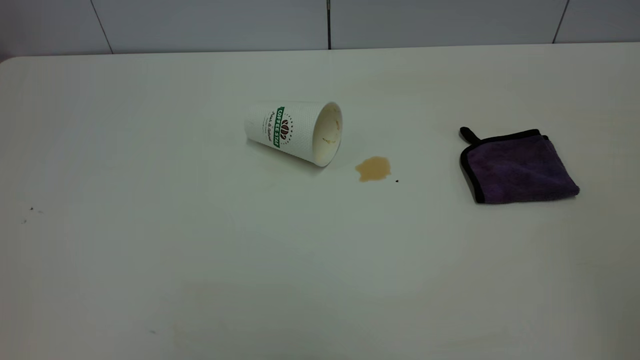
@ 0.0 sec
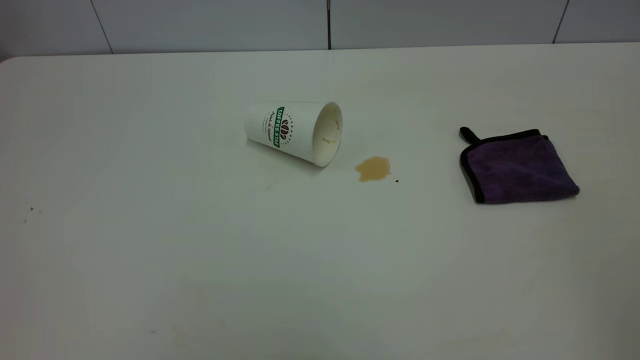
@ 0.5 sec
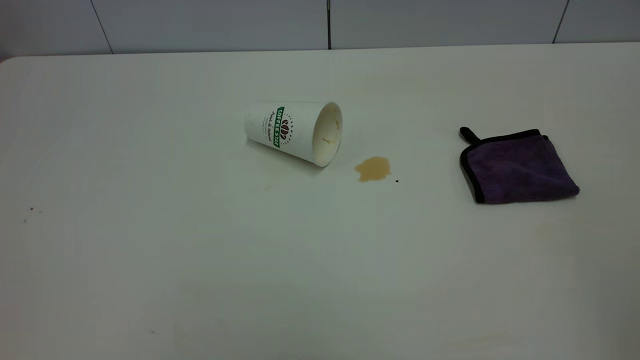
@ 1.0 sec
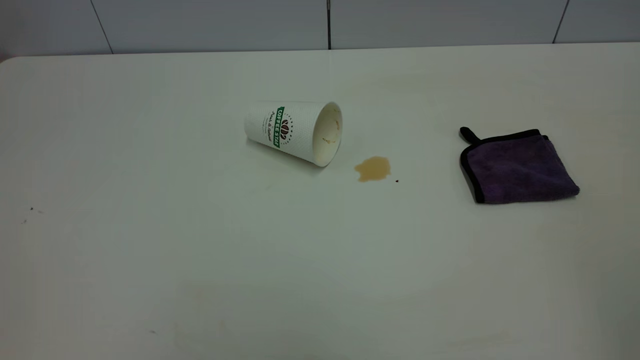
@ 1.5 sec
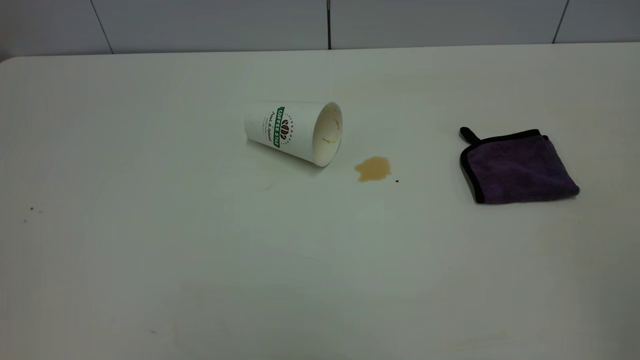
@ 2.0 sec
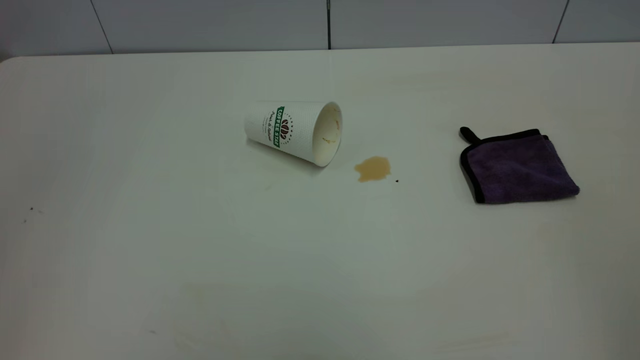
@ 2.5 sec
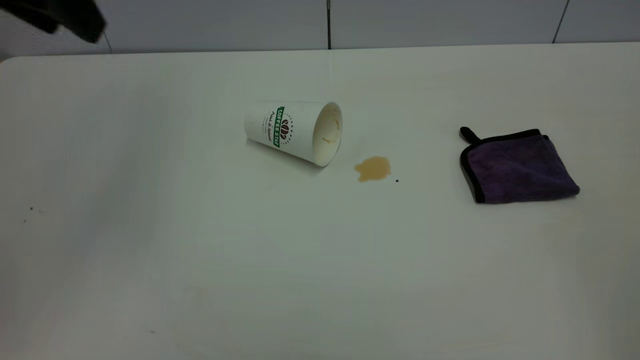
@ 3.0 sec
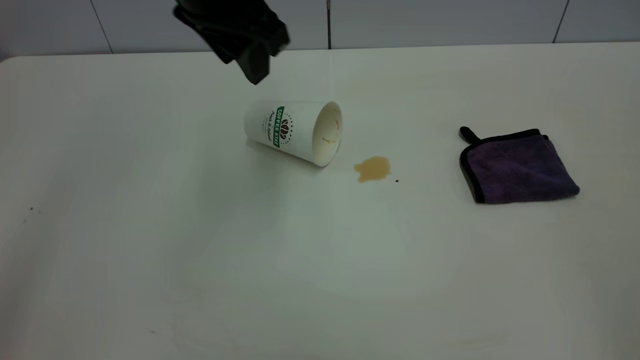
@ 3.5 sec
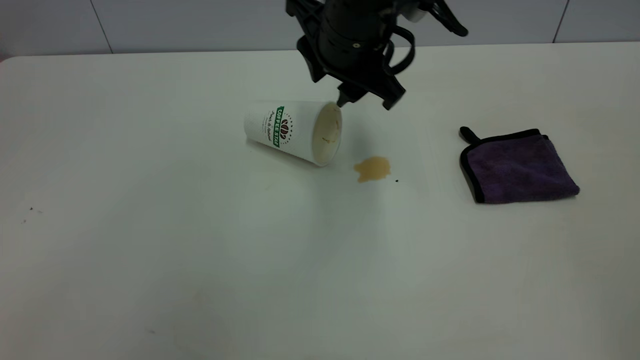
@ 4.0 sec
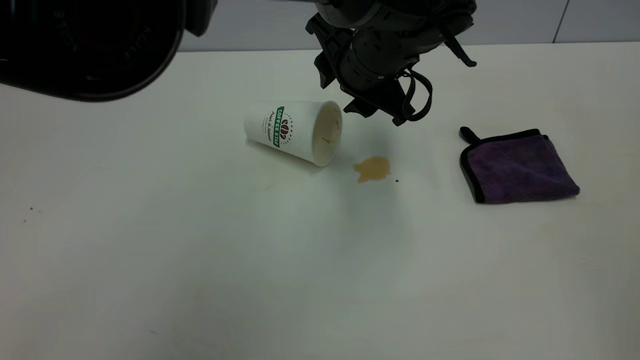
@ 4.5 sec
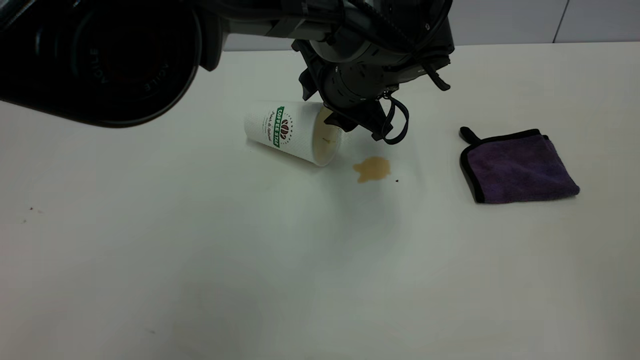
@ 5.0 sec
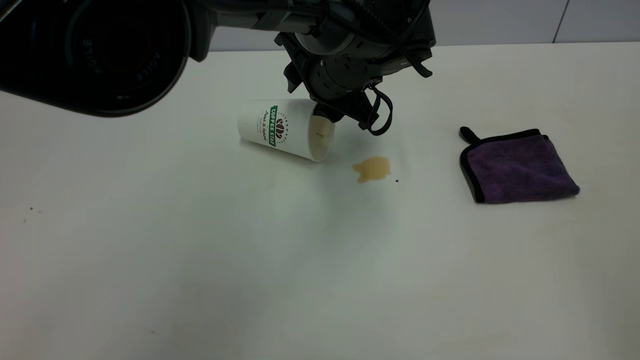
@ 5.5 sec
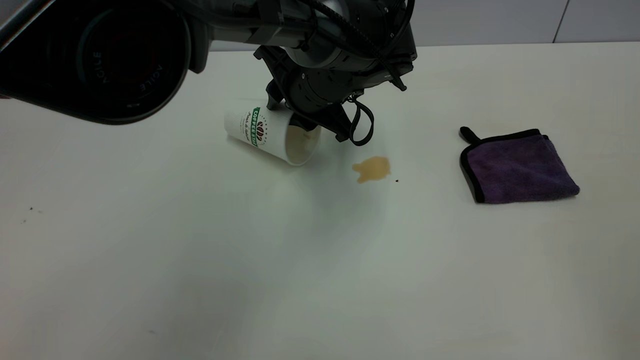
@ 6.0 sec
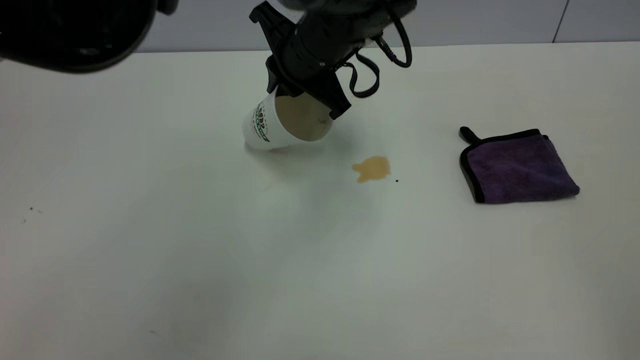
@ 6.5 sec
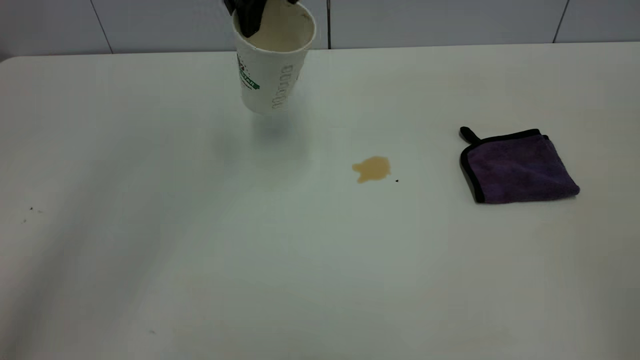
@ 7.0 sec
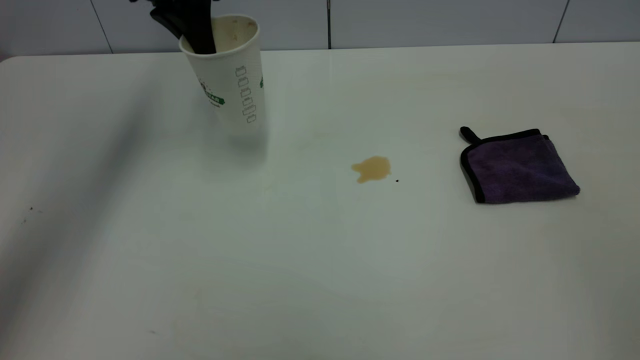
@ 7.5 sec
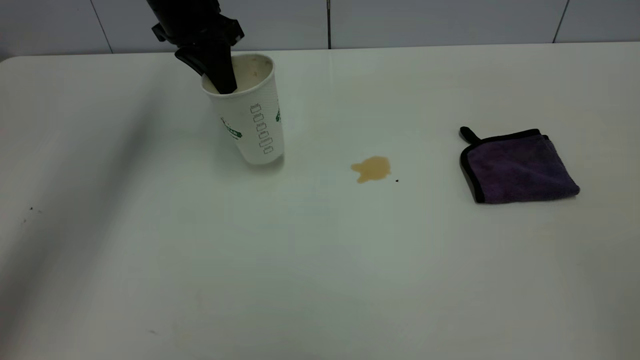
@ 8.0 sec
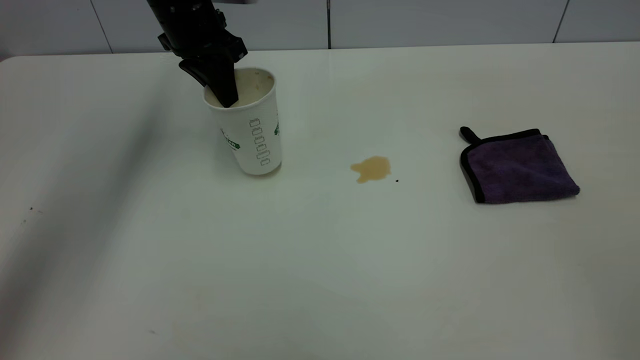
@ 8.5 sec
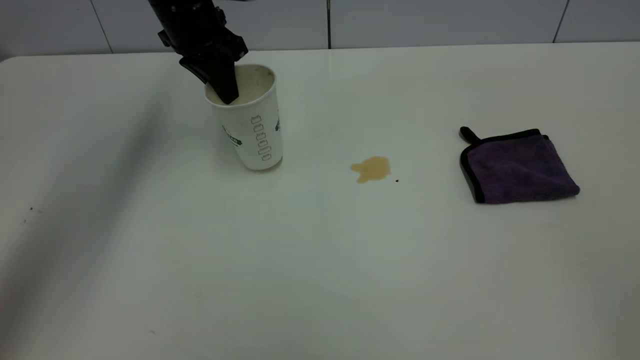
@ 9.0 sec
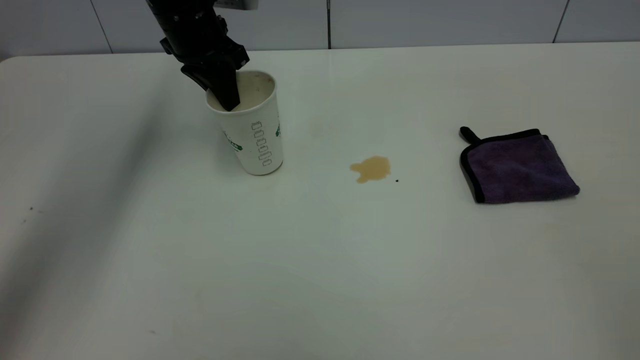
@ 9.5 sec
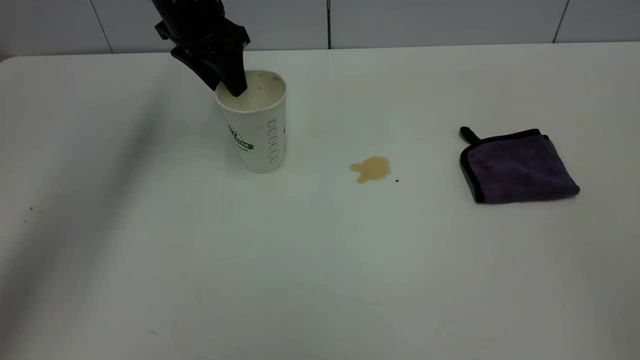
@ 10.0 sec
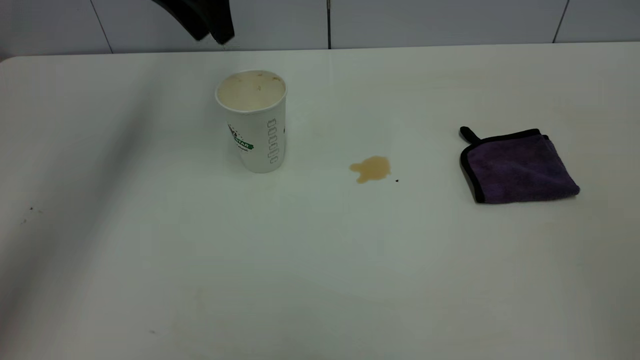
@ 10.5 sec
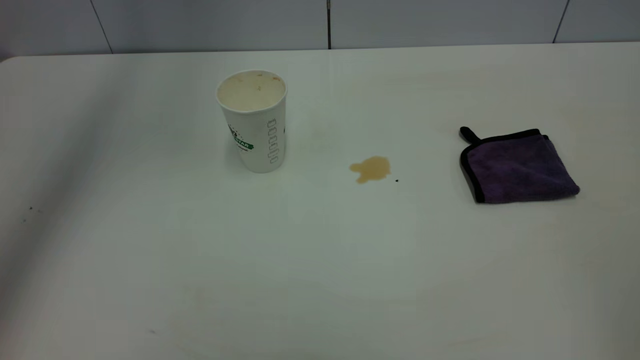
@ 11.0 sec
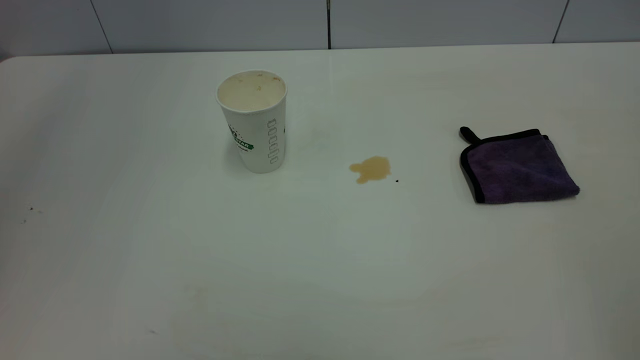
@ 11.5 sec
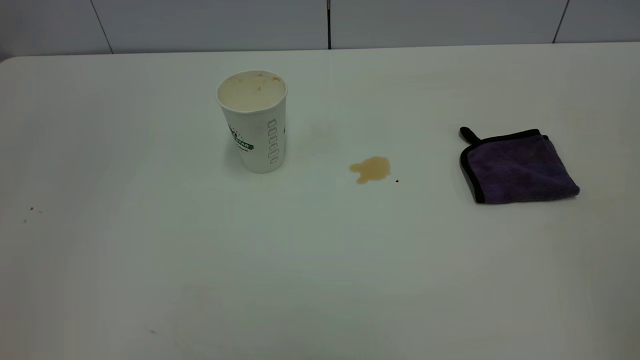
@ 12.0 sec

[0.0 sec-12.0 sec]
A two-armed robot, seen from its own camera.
Task of the whole recording: the left gripper pick up the fallen cup and place it upright, the right gripper grasp the purple rag and wipe the tea stain on the table, the right gripper put the purple rag back in its original position.
Step, 0.0 sec to 10.0 sec: Stand the paper cup upright.
2.0 sec to 4.0 sec: The left gripper shifts roughly 50 cm forward, to the right and downward.
4.0 sec to 6.0 sec: The left gripper is displaced downward by some 10 cm, and closes its fingers.
6.0 sec to 8.0 sec: The left gripper shifts some 20 cm to the left, forward and upward, and closes up.
8.0 sec to 10.0 sec: The left gripper opens up.
10.0 sec to 12.0 sec: The left gripper goes about 40 cm backward and upward.

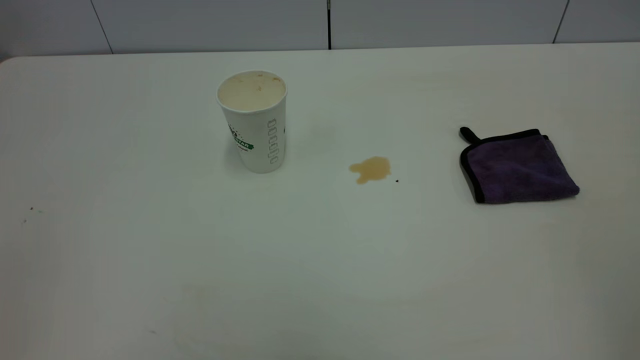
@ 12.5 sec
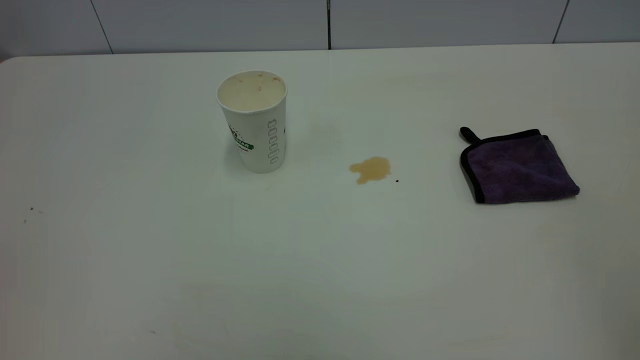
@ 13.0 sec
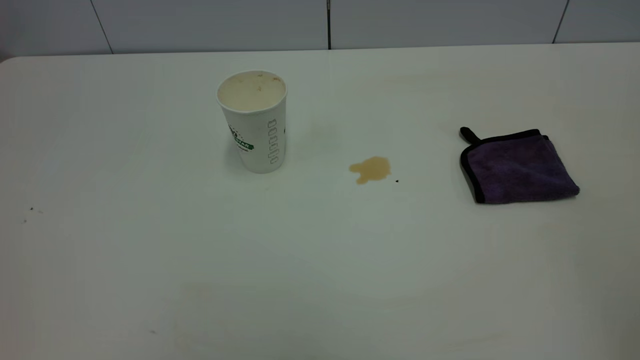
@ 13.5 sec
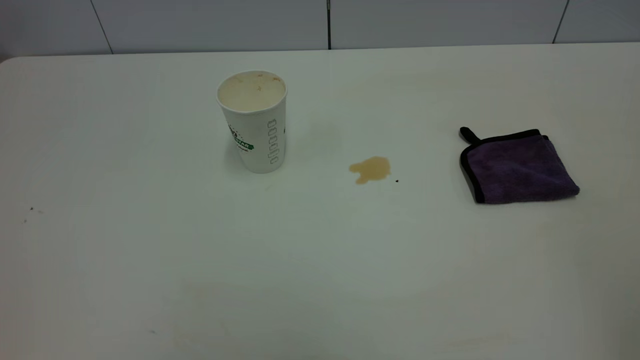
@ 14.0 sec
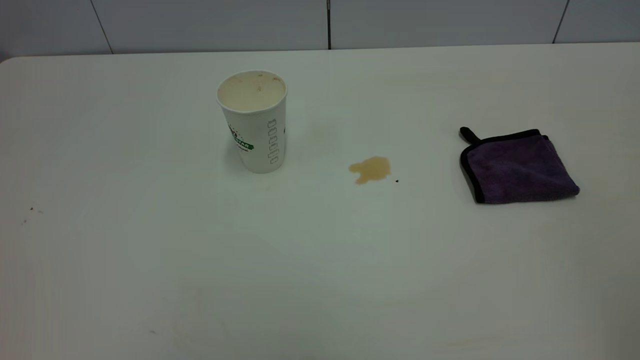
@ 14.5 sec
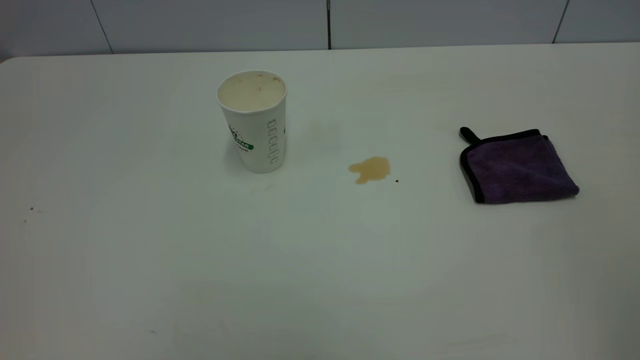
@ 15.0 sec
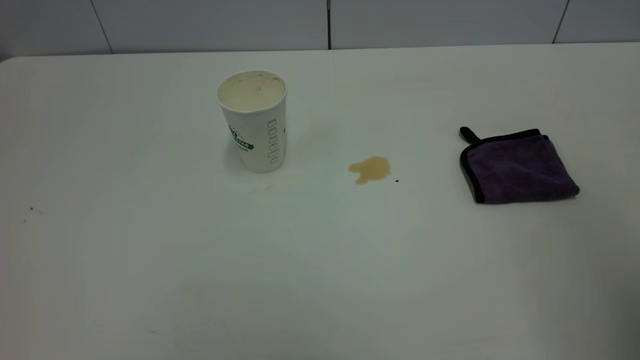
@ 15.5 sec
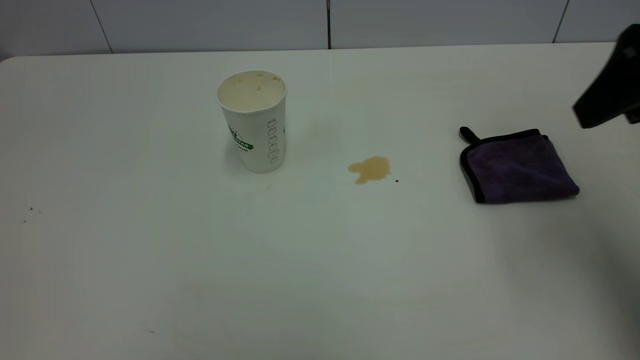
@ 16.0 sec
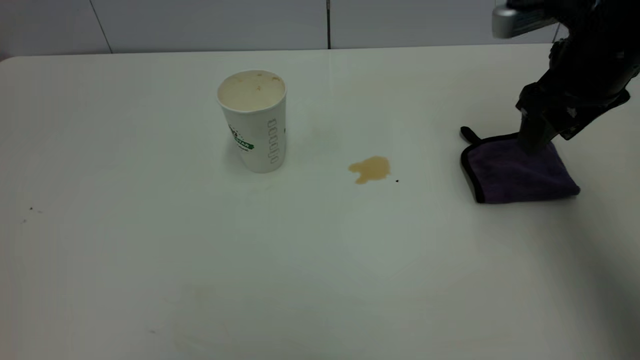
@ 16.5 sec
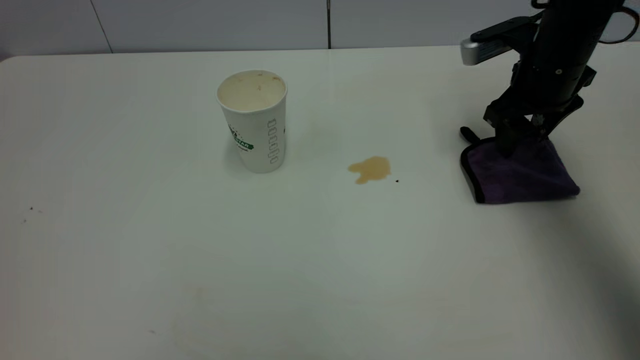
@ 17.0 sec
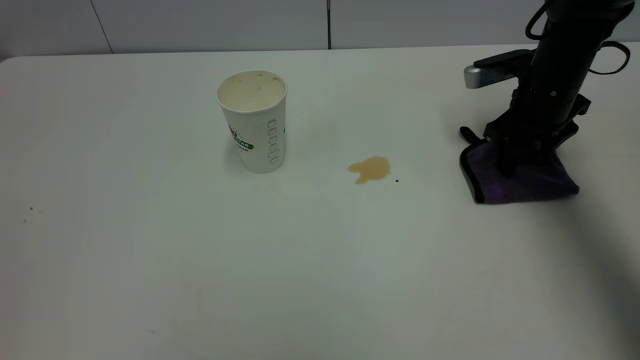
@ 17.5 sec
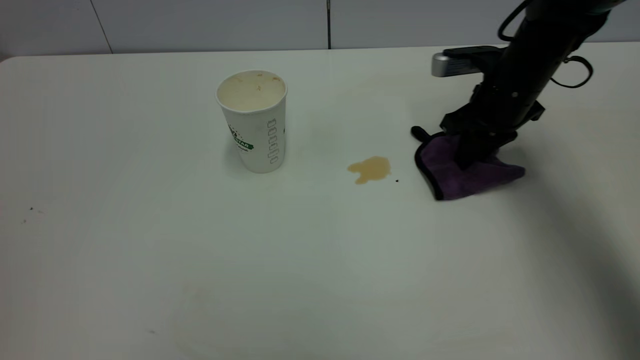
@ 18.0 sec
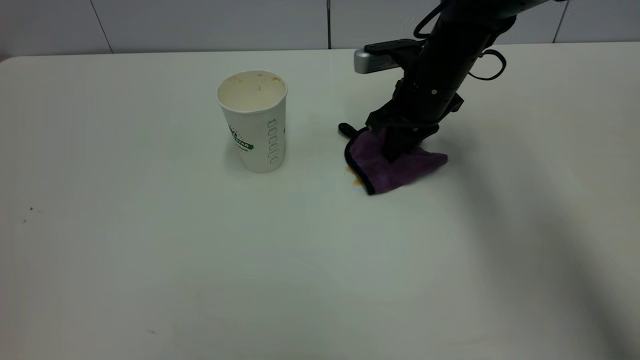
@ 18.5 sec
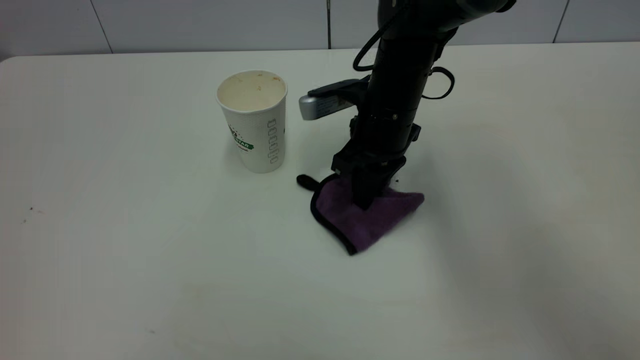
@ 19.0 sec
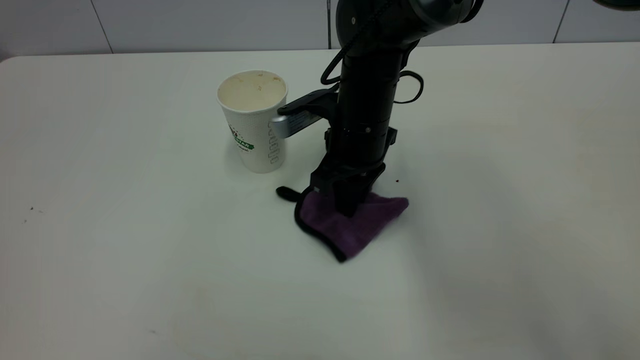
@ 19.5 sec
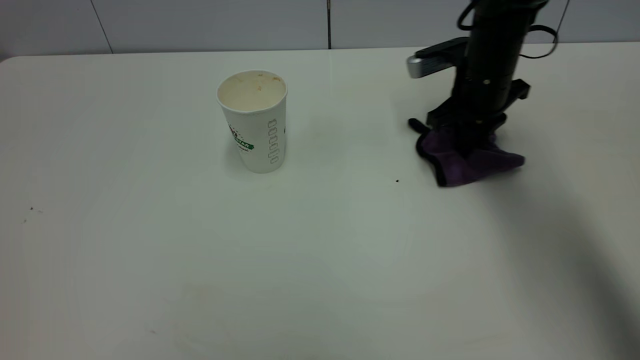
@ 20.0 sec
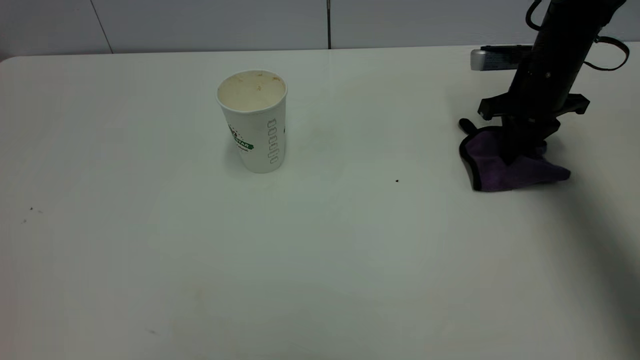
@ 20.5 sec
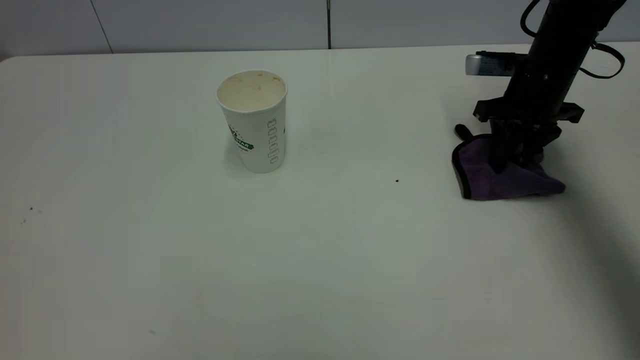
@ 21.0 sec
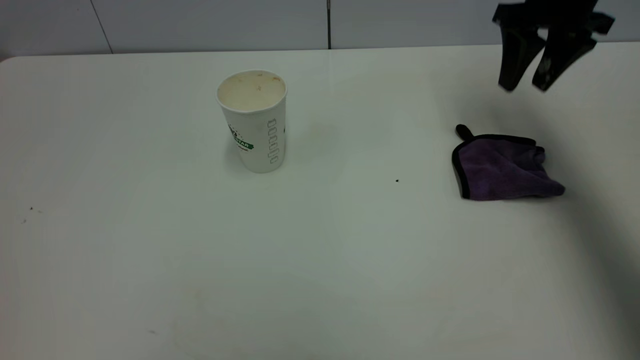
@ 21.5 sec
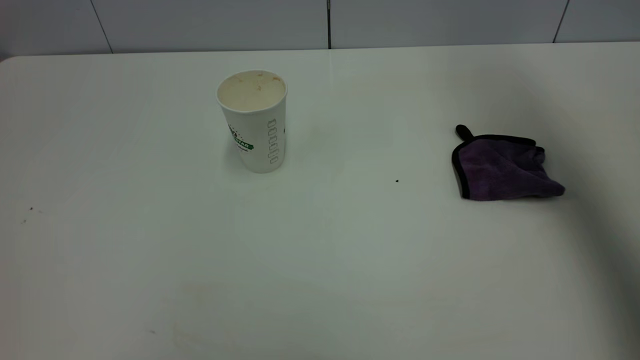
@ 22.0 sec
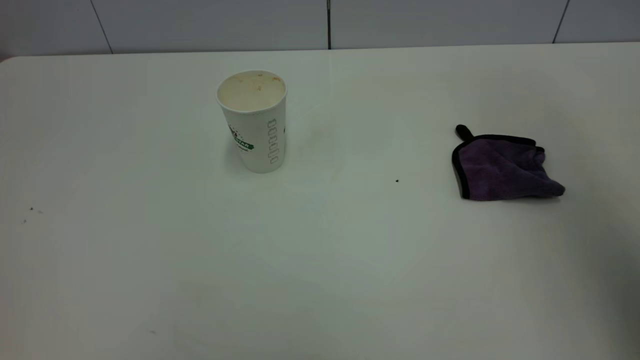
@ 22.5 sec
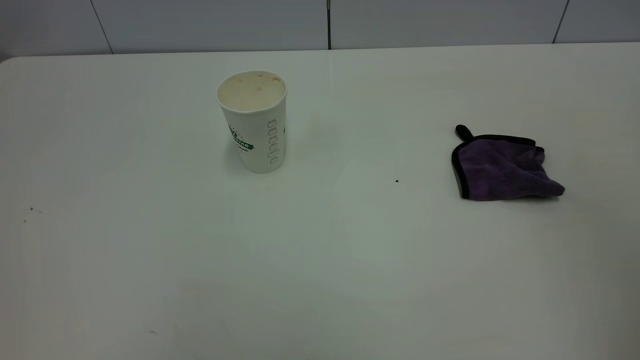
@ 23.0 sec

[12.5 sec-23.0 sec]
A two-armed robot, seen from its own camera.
Task of the whole recording: the left gripper pick up the fallen cup and place it upright, the right gripper grasp the purple rag and wipe the tea stain on the table, the right gripper put the purple rag back in its original position.
Step, 12.5 sec to 21.5 sec: Wipe the stains off the table with a rag.
14.5 sec to 16.5 sec: The right gripper goes roughly 40 cm forward and downward.
16.5 sec to 19.0 sec: The right gripper shifts roughly 20 cm to the left and downward, and closes its fingers.
19.0 sec to 21.0 sec: The right gripper moves to the right, about 20 cm, and opens.
21.0 sec to 23.0 sec: The right gripper heads backward and upward, covering roughly 50 cm.
